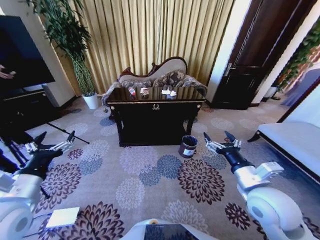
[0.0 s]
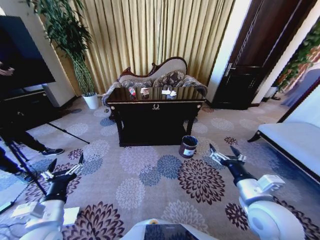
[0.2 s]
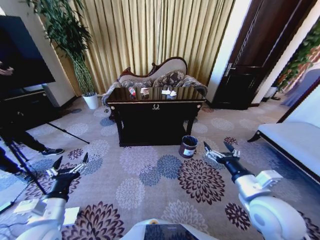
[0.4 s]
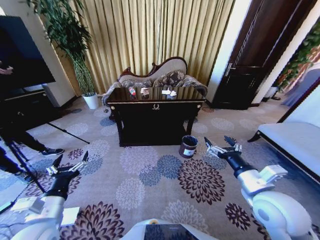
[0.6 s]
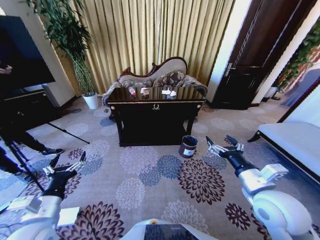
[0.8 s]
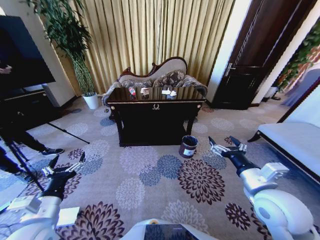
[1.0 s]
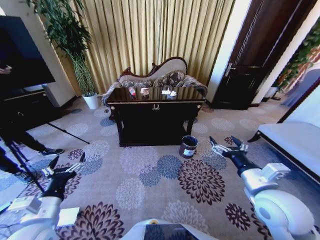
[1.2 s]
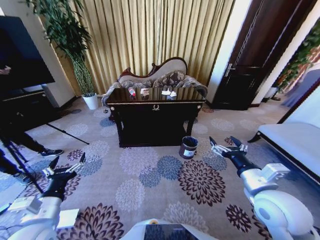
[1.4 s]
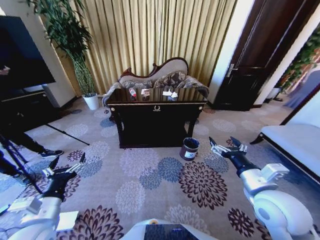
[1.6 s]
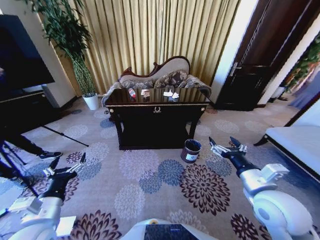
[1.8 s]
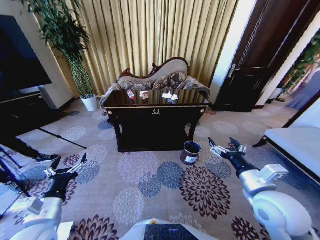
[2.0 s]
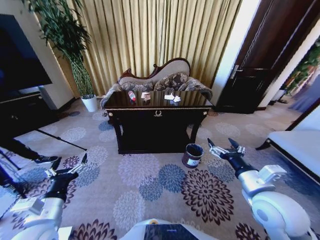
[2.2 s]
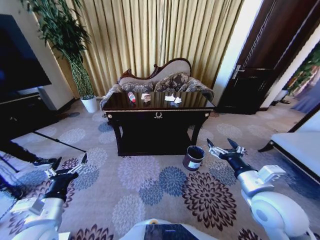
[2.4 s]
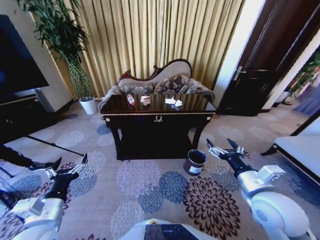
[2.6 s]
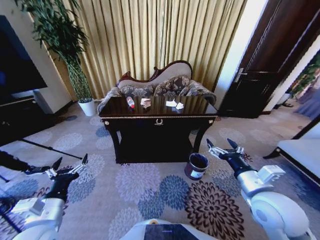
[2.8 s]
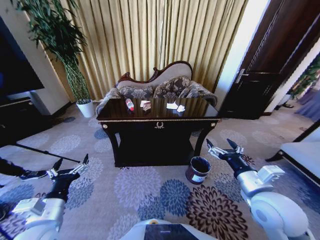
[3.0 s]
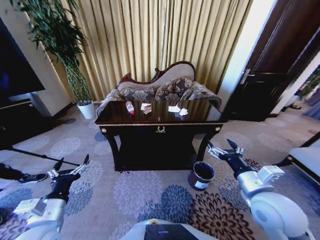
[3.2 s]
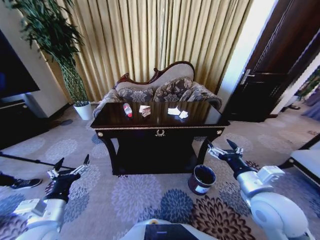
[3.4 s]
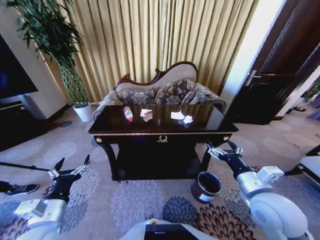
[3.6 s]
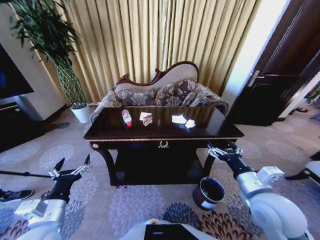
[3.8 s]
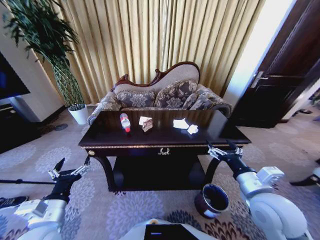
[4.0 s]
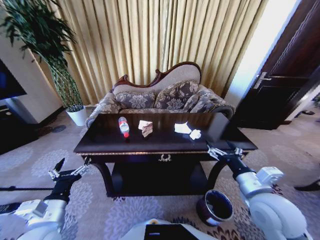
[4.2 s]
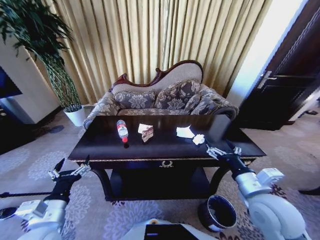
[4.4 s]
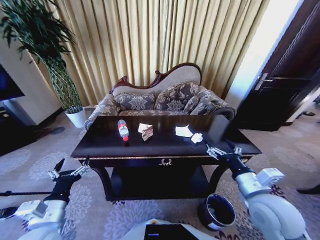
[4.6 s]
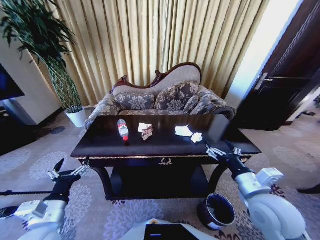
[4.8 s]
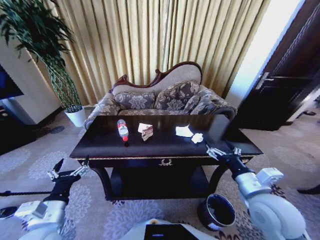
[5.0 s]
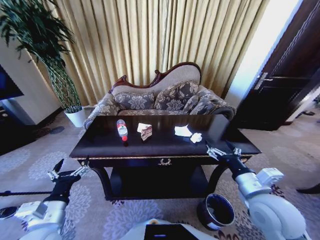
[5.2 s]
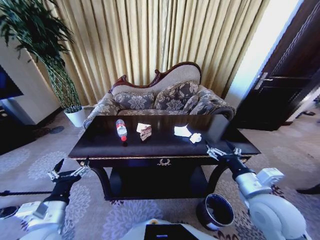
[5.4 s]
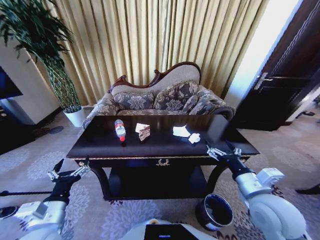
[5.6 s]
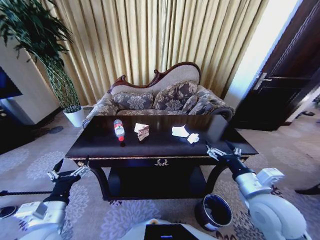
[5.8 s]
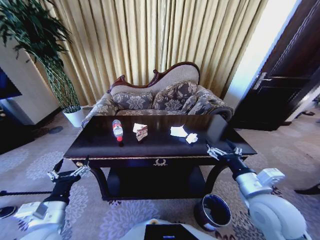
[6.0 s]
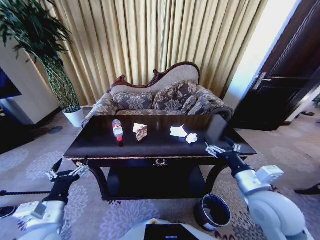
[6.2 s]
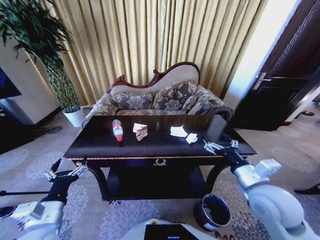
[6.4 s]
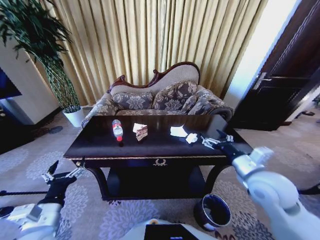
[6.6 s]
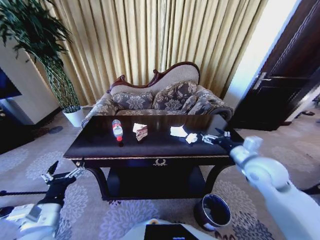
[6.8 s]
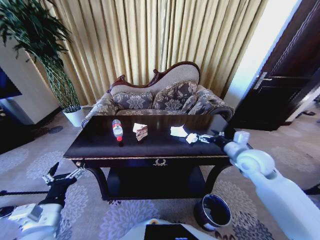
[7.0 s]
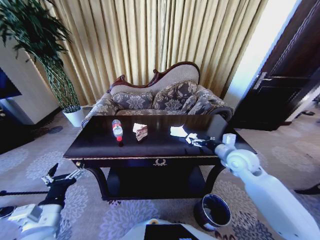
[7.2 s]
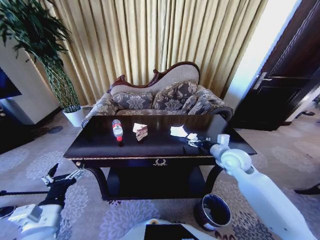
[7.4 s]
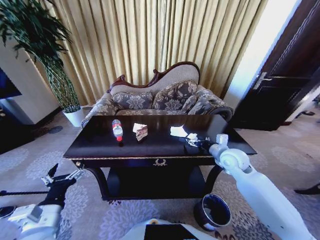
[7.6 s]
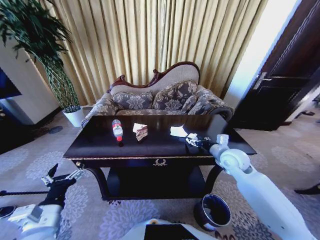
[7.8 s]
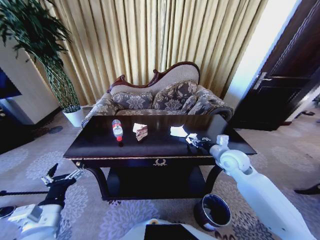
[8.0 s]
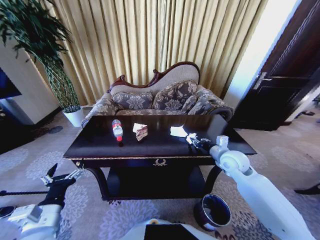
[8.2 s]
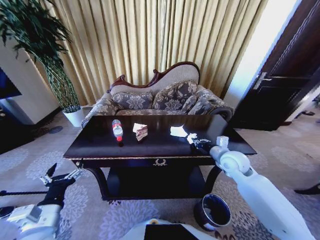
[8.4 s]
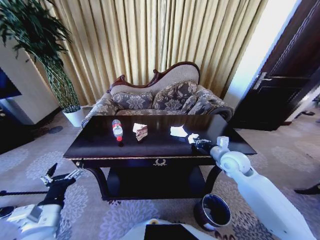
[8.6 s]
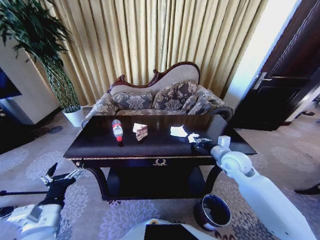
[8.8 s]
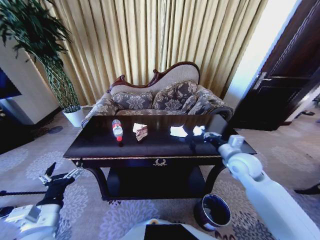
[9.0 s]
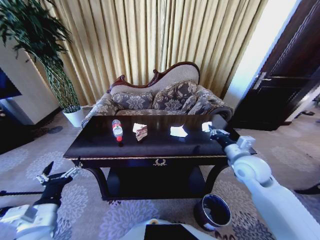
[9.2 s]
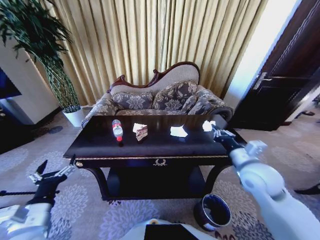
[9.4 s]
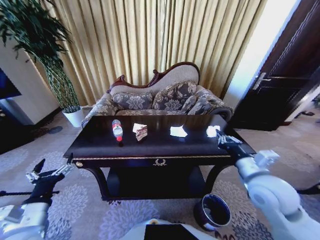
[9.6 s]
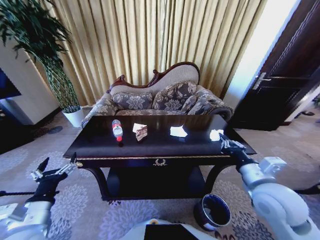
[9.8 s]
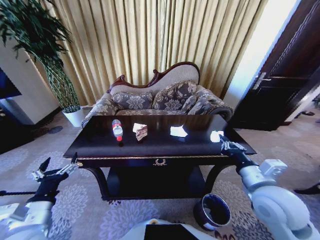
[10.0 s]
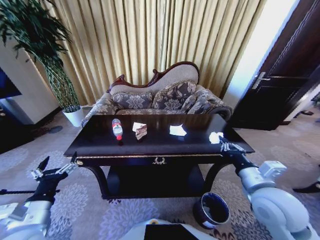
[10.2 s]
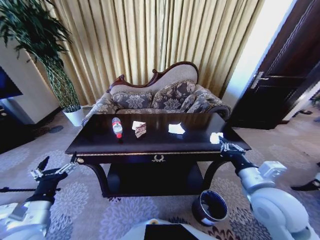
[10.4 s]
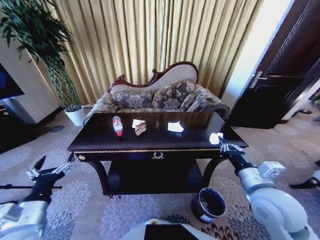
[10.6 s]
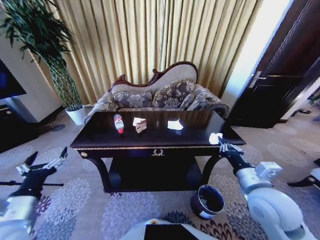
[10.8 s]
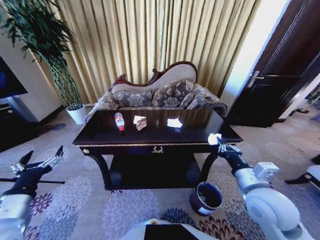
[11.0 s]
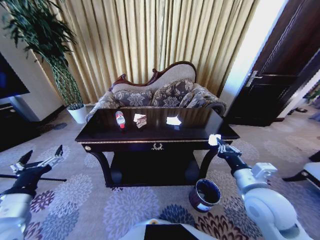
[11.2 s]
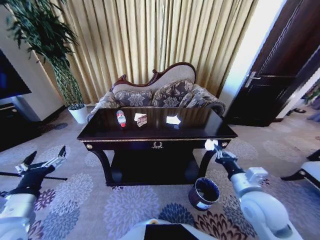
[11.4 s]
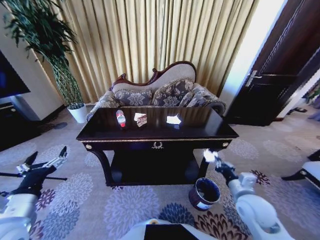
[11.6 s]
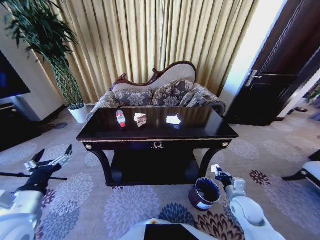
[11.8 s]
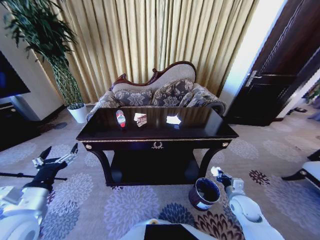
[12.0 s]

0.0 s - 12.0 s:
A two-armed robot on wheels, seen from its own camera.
Task of the whole recording: Move to the front of the table and place the trash on the table into the trash bin.
6.0 s - 7.6 s: The right gripper shifts about 20 cm forward.
7.6 s - 9.0 s: The right gripper closes.
9.0 s - 10.4 s: The right gripper heads backward, covering about 15 cm.
10.4 s - 12.0 s: The right gripper shifts approximately 20 cm downward.

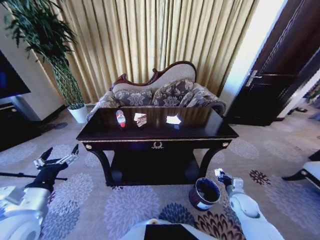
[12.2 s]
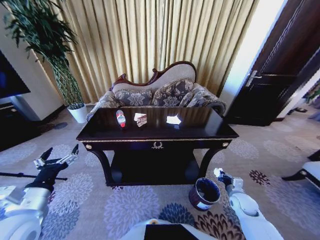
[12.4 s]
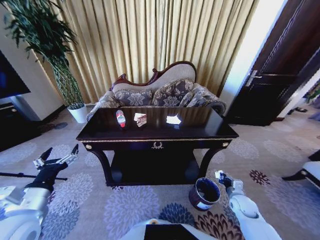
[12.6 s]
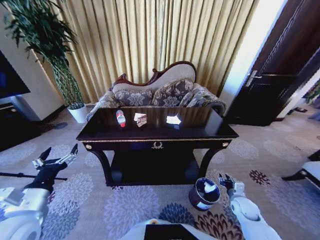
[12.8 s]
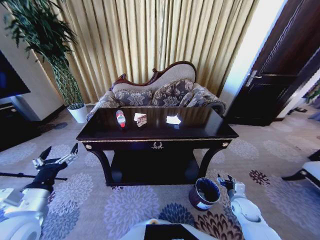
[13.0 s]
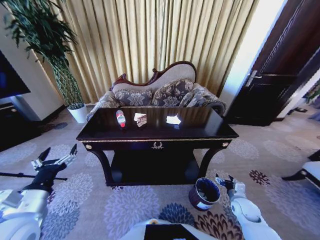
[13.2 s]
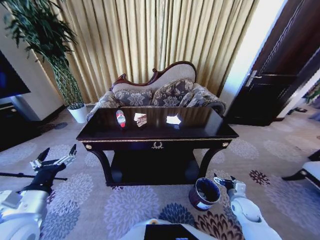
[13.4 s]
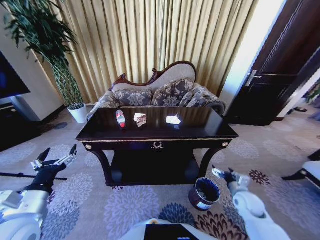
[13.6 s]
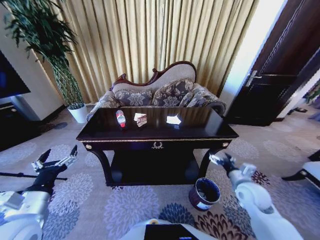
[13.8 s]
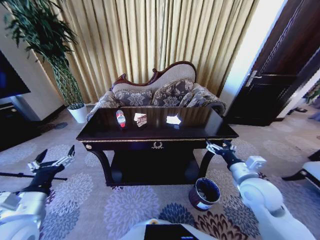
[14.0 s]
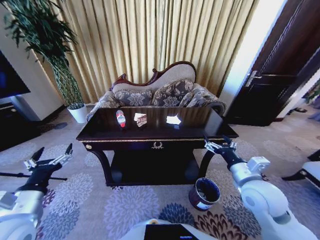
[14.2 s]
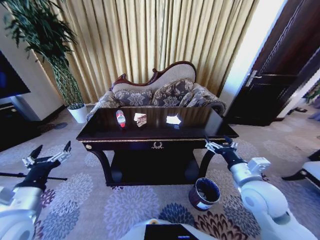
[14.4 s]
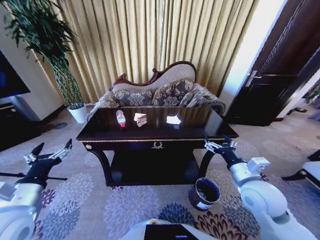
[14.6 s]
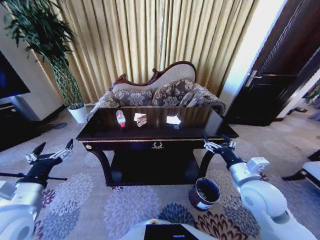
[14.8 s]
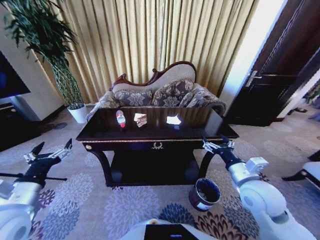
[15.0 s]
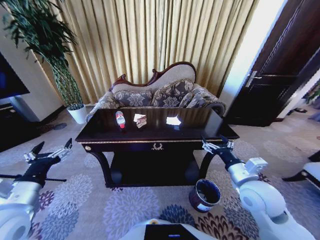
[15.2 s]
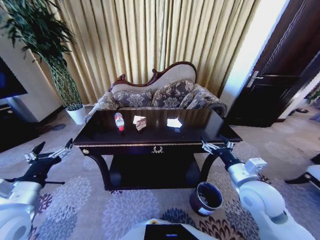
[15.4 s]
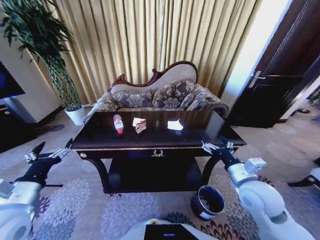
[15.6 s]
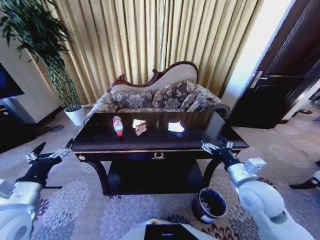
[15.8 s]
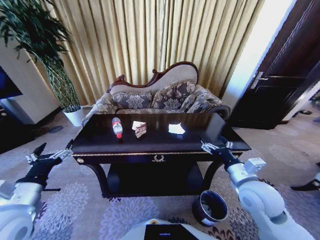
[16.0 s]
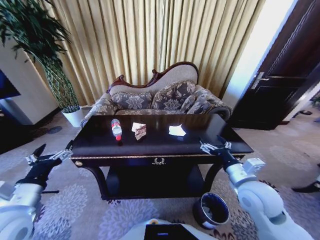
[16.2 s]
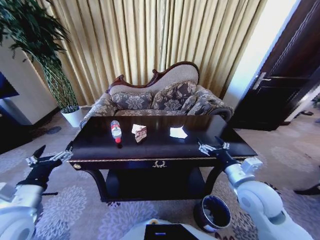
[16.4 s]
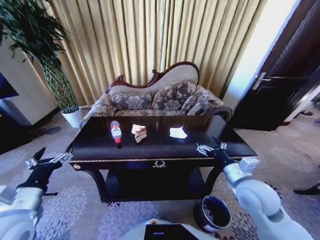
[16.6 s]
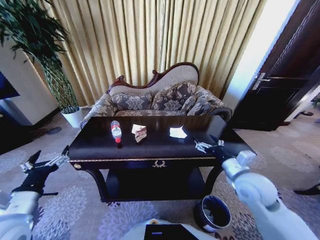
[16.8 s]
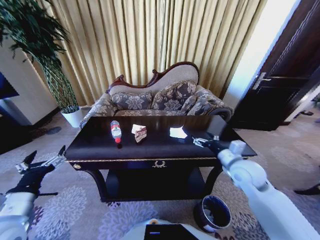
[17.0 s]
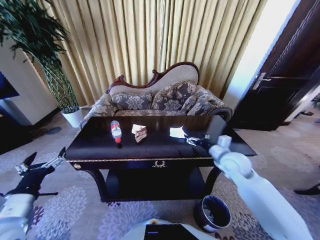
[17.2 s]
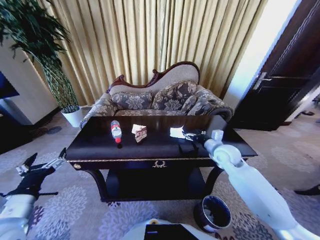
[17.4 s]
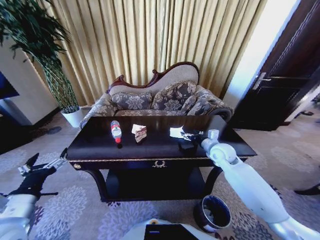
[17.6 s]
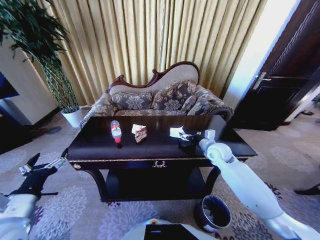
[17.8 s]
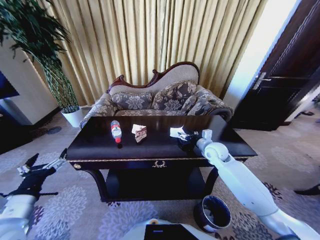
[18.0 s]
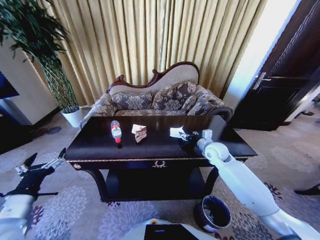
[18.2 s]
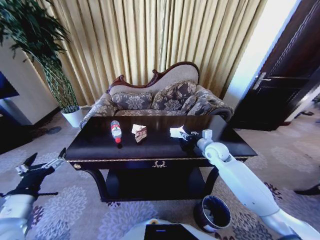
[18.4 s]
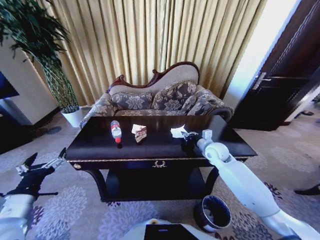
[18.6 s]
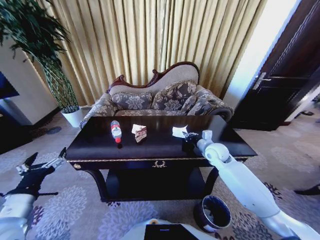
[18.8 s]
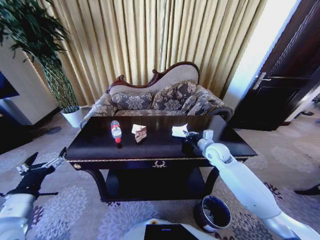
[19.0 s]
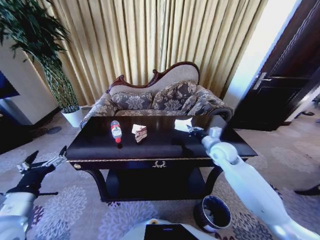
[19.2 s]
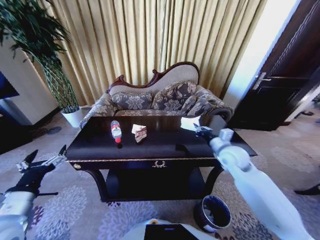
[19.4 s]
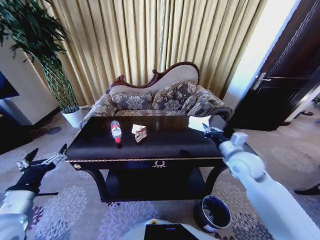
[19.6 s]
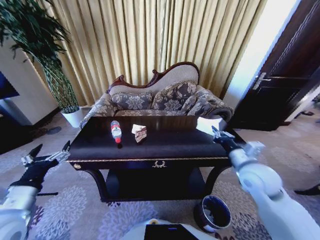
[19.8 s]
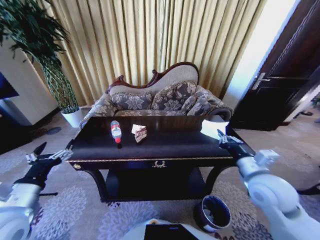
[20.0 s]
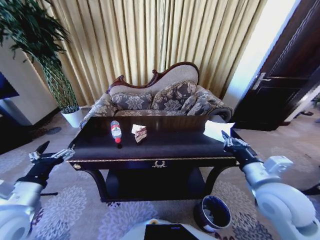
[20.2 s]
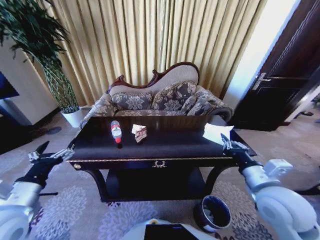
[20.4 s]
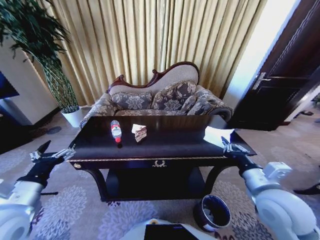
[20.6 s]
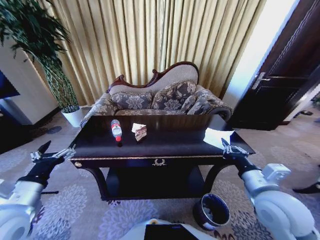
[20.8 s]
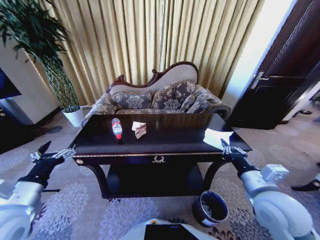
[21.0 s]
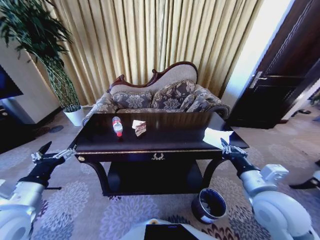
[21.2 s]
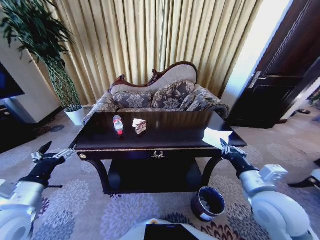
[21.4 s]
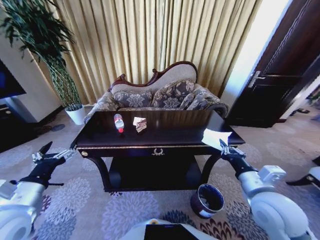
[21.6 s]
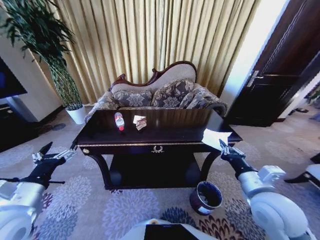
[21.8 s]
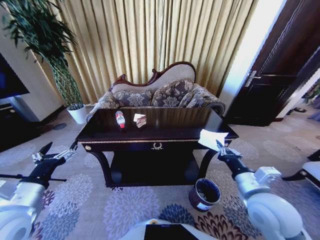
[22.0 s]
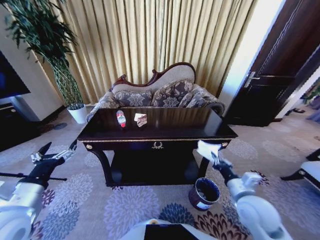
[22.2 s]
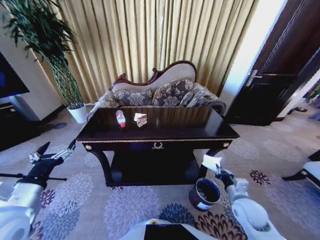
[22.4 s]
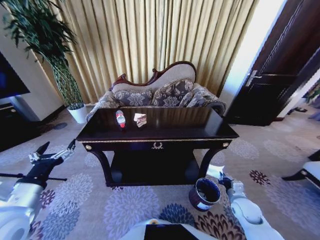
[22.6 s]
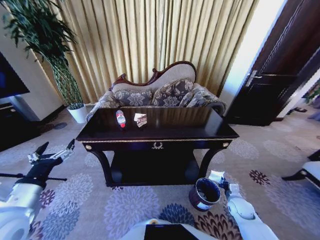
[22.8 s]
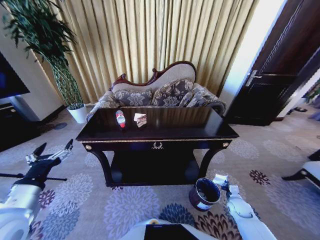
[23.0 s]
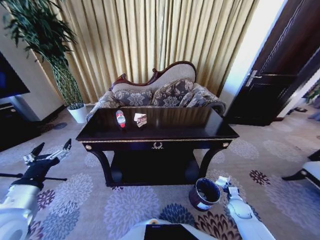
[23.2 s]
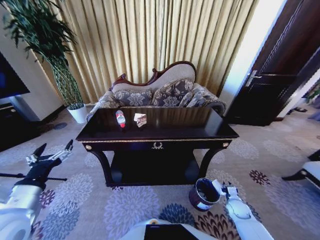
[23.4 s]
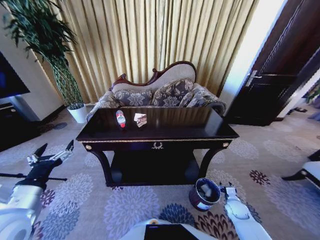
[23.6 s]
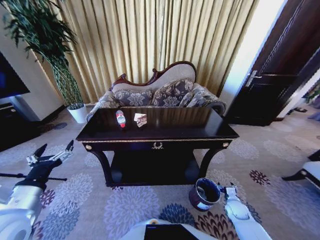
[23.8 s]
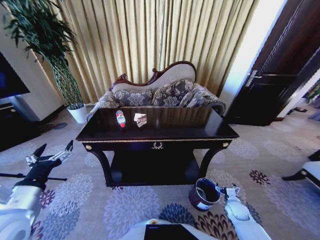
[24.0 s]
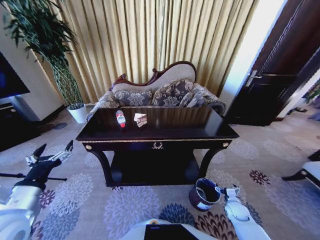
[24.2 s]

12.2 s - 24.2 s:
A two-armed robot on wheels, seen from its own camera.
Task of the whole recording: Move to the front of the table and place the trash on the table into the trash bin.
12.2 s - 13.8 s: The right gripper shifts about 10 cm upward, and opens.
13.8 s - 15.2 s: The right gripper is displaced upward and to the left by roughly 10 cm.
16.6 s - 18.2 s: The right gripper moves forward, approximately 20 cm.
18.2 s - 19.8 s: The right gripper goes about 20 cm backward and upward, and closes up.
19.8 s - 21.2 s: The right gripper heads backward, covering roughly 10 cm.
21.2 s - 22.6 s: The right gripper shifts approximately 25 cm downward.
22.6 s - 24.2 s: The right gripper is displaced downward by roughly 10 cm, and opens up.
